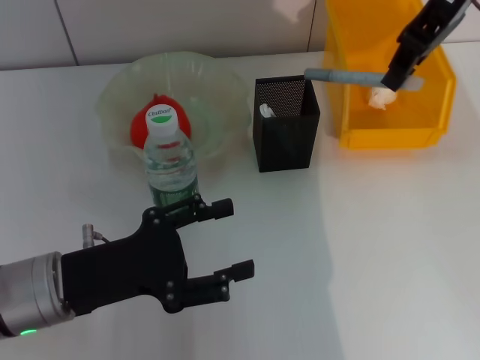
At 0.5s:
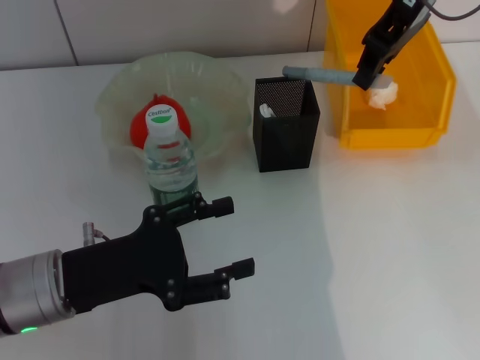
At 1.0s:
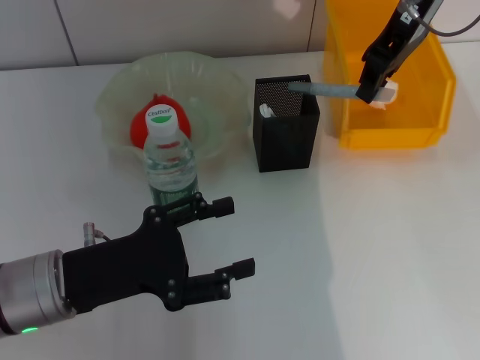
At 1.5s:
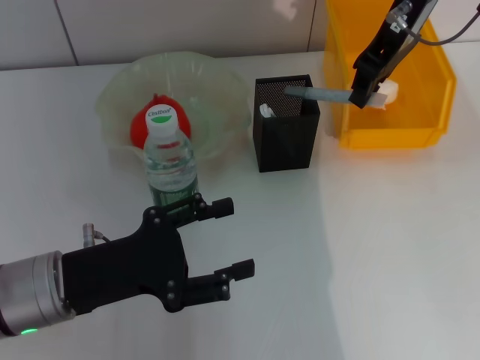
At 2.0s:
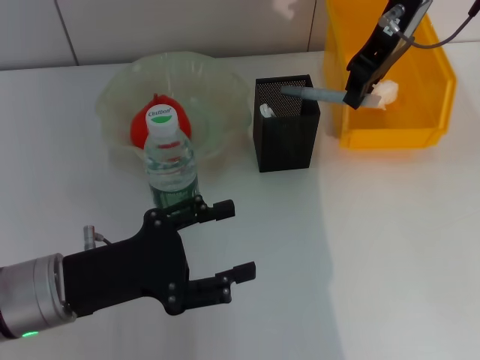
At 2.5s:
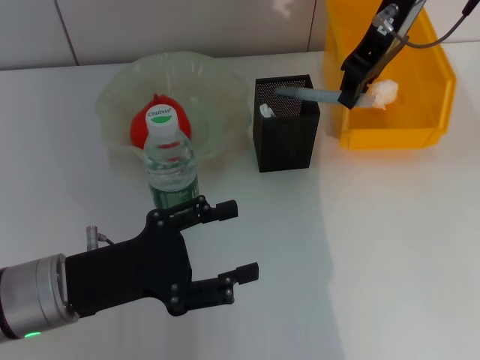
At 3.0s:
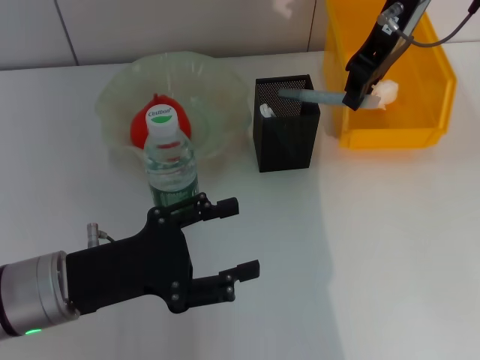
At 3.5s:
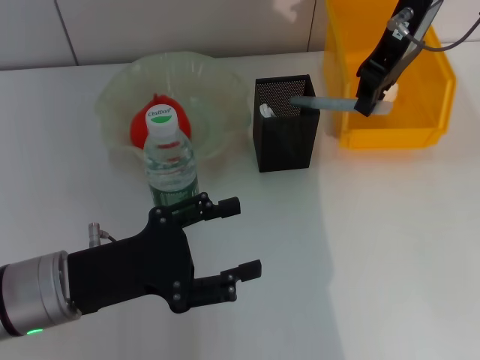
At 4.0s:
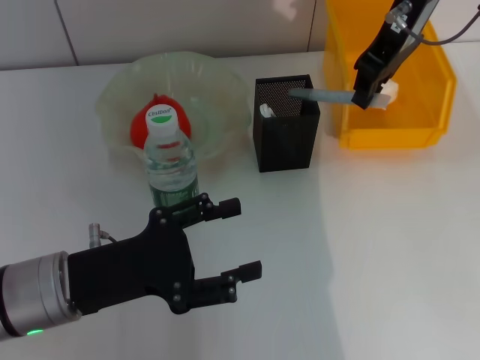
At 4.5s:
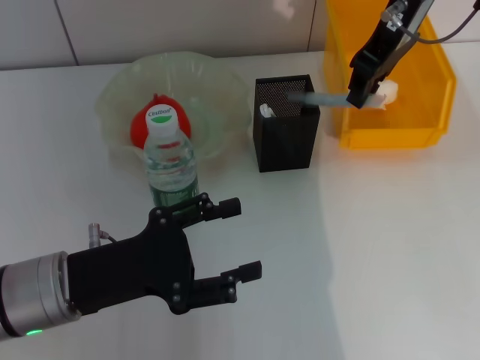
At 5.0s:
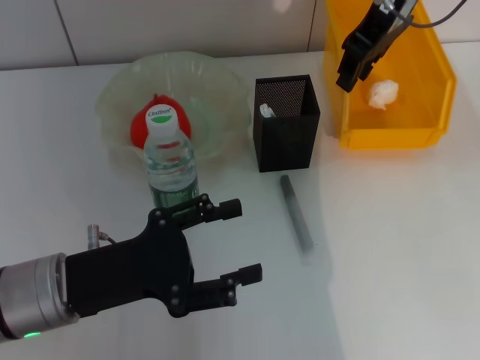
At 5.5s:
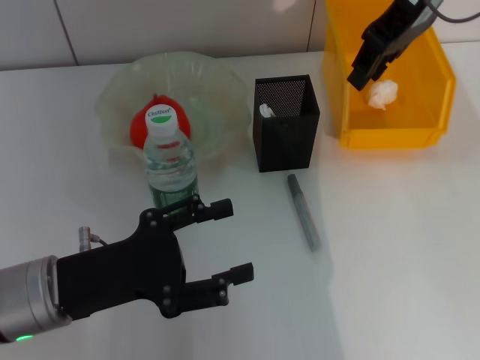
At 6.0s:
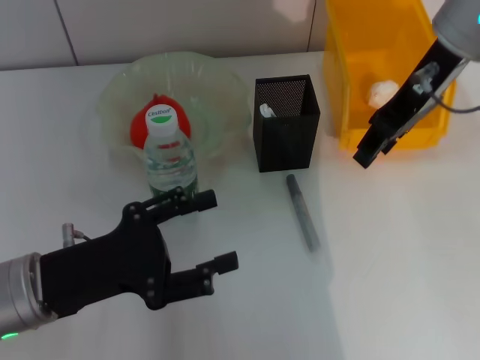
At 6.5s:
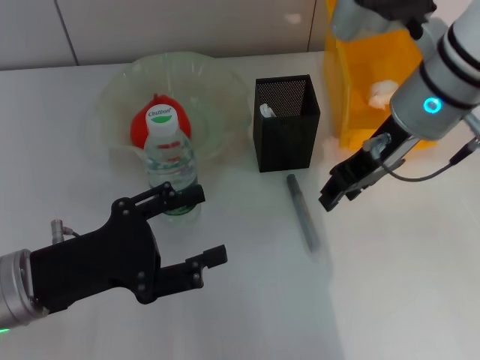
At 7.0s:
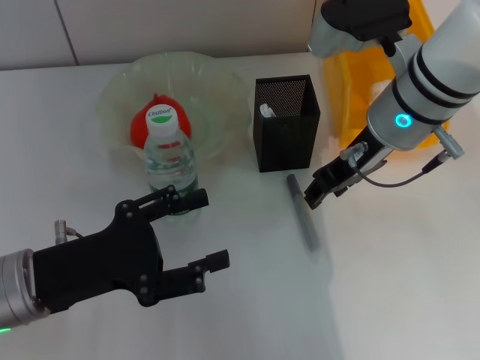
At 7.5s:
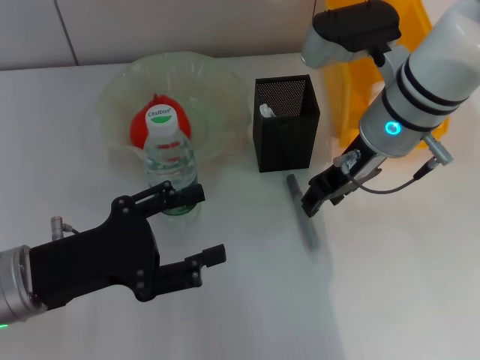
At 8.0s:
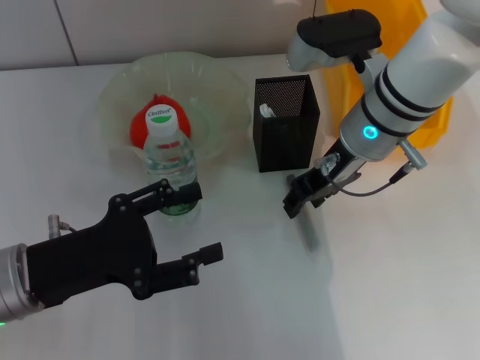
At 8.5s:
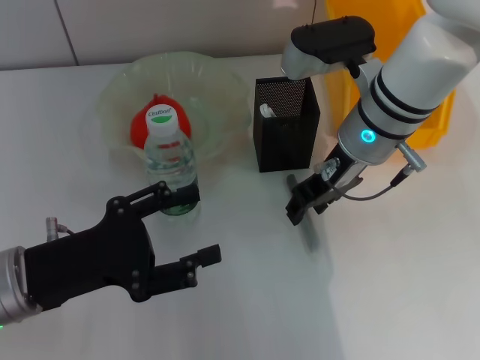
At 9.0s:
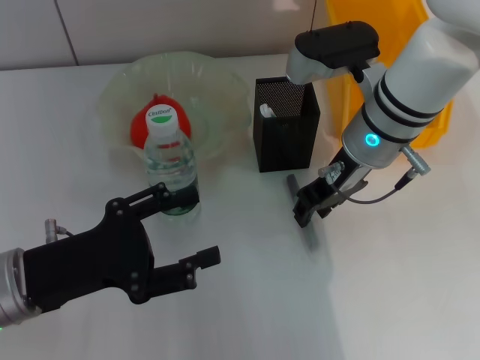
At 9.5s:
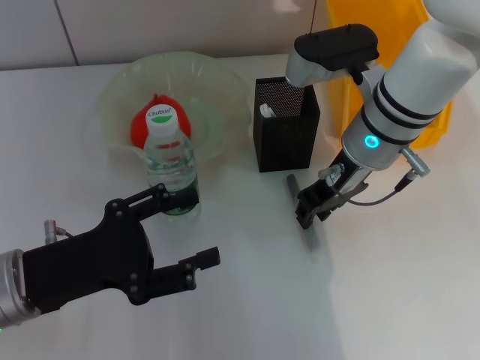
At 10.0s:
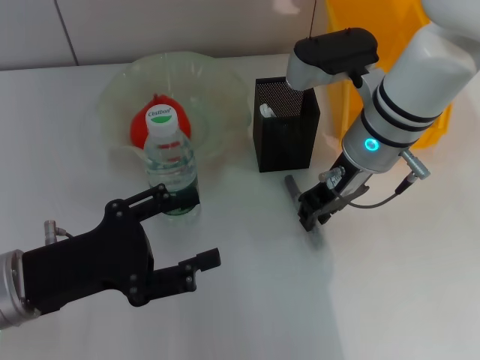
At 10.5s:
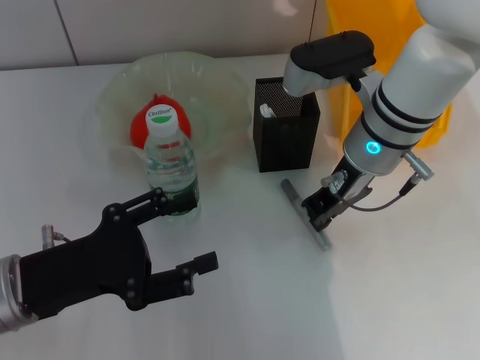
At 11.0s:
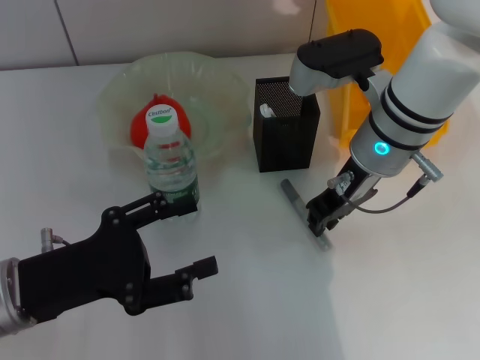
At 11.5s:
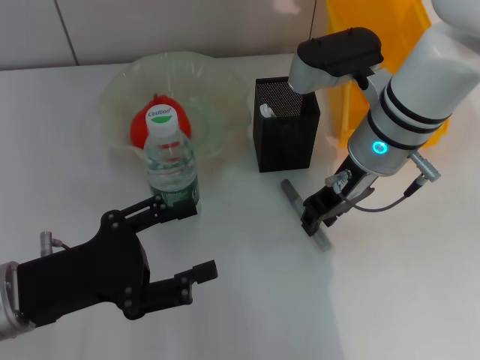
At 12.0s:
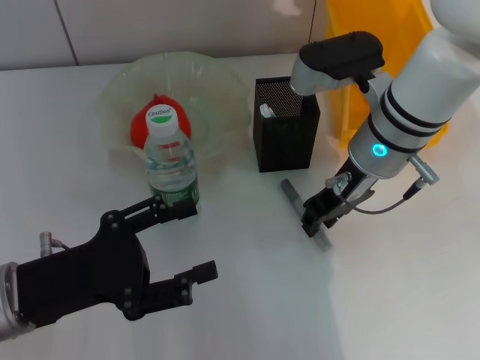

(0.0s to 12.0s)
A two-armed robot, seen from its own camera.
0.0s - 2.0s: The right gripper shifts by some 5 cm.
2.0s - 4.0s: Neither gripper changes place.
4.0s - 6.0s: The right gripper travels backward by approximately 5 cm, and opens its fingers.
6.0s - 8.0s: The right gripper moves downward and to the left, some 15 cm.
8.0s - 10.0s: The two grippers keep their place.
10.0s - 12.0s: The two grippers keep their place.

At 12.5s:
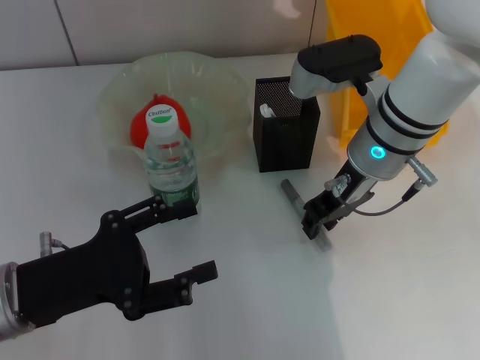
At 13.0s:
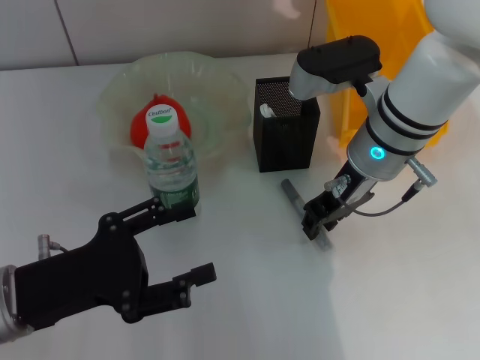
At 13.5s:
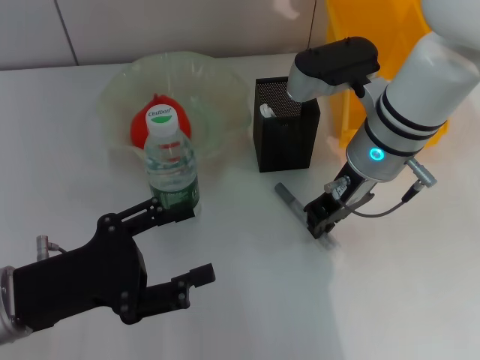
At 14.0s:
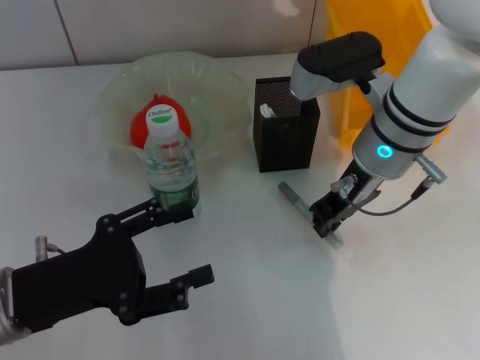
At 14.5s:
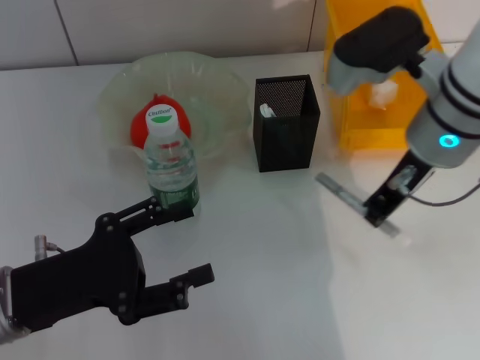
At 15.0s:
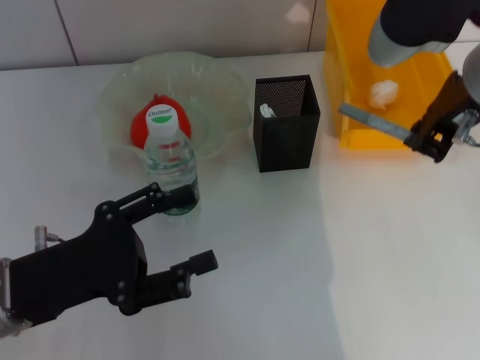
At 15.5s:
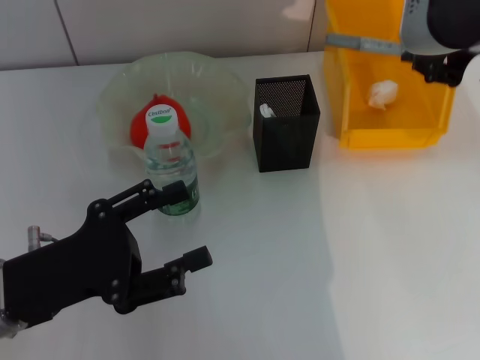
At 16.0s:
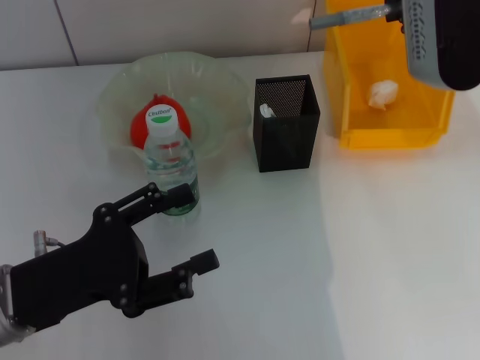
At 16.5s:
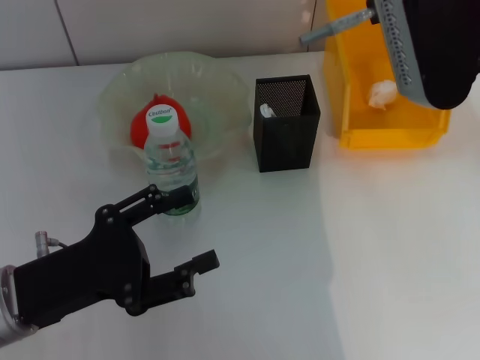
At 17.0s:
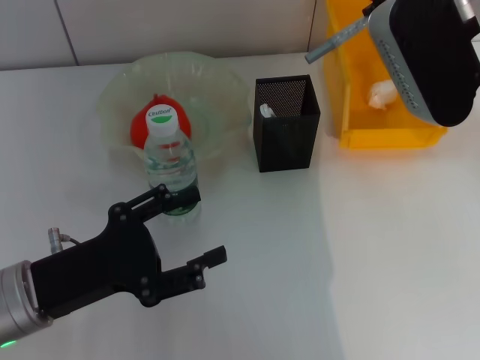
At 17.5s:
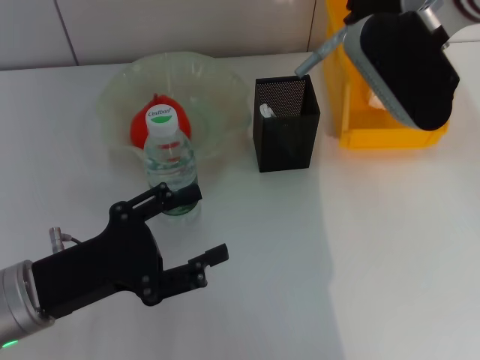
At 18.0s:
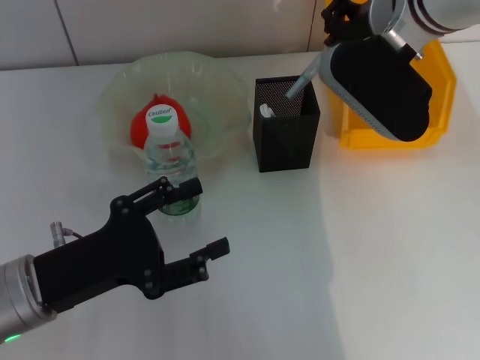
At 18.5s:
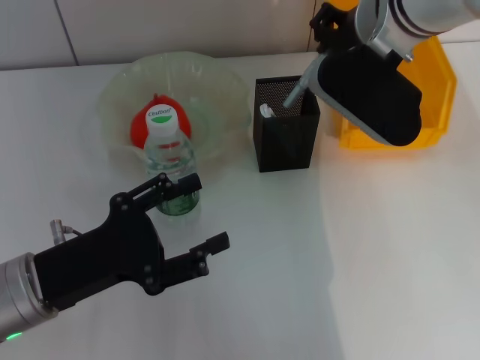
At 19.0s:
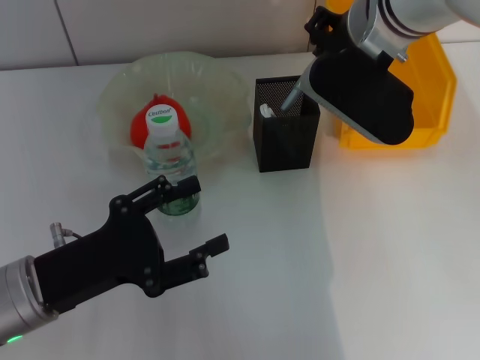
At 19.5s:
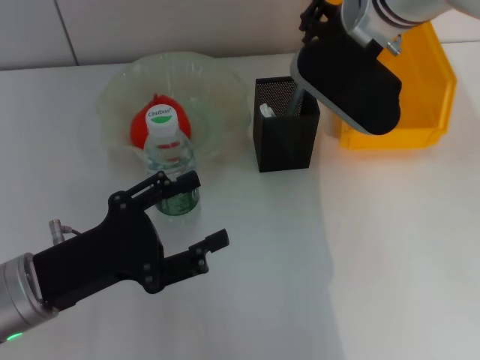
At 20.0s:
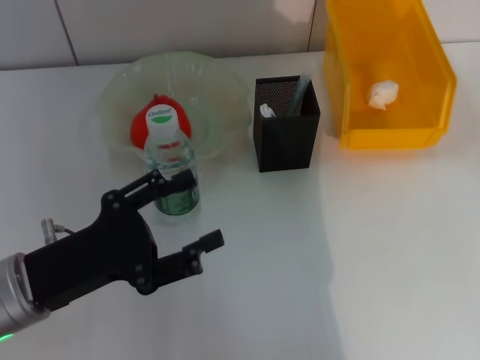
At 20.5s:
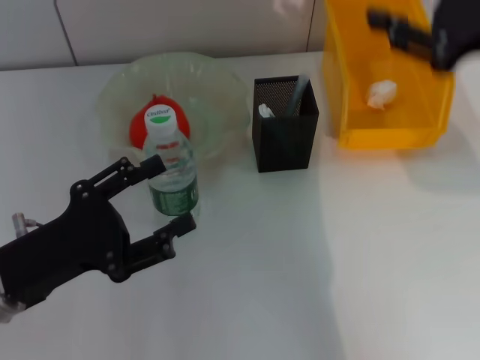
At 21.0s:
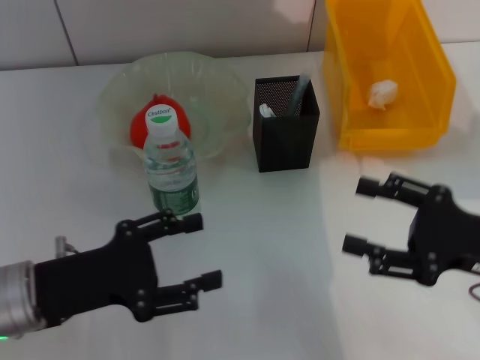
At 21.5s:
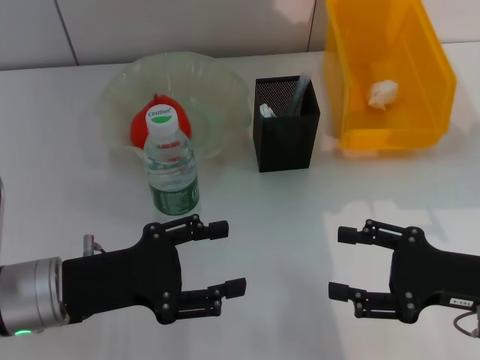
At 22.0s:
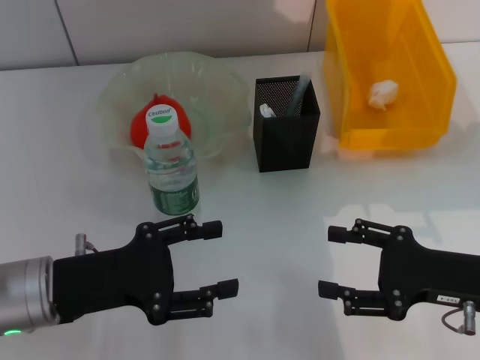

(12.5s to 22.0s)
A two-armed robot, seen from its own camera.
Step, 14.0s - 19.5s: Place the gray glue into the pen holder with the right hand.
12.5s - 14.5s: The right gripper shifts about 5 cm upward.
14.5s - 16.5s: The right gripper moves upward, roughly 10 cm.
16.5s - 18.0s: The right gripper shifts roughly 5 cm downward.
18.0s - 20.0s: The right gripper is displaced upward by roughly 10 cm, and opens.
20.0s - 22.0s: The right gripper is displaced downward, backward and to the right by some 35 cm, and opens its fingers.

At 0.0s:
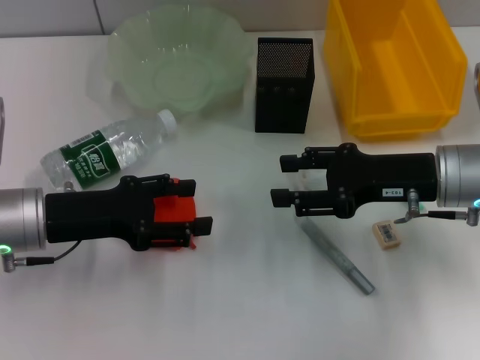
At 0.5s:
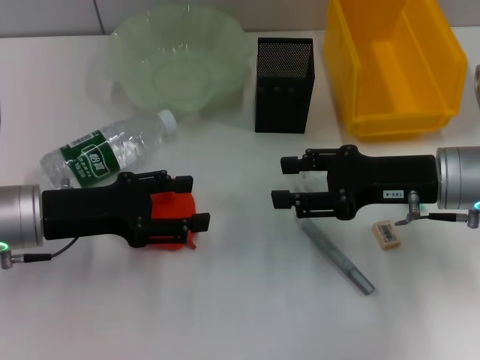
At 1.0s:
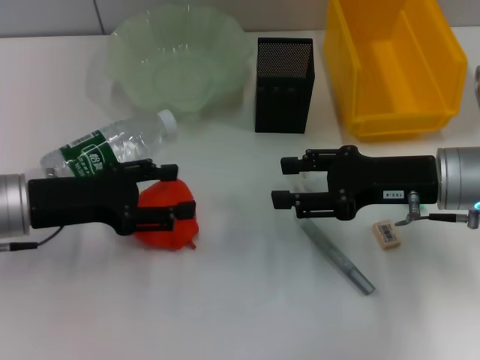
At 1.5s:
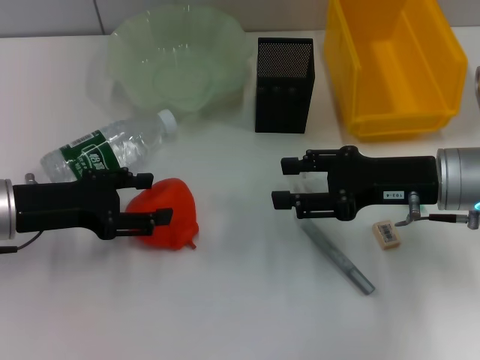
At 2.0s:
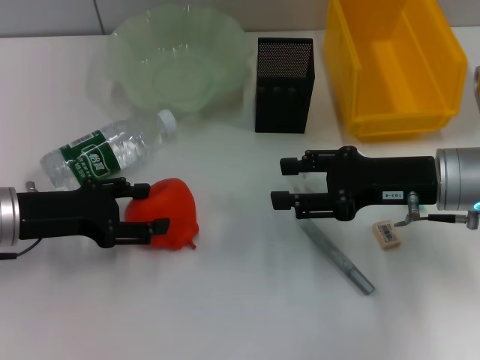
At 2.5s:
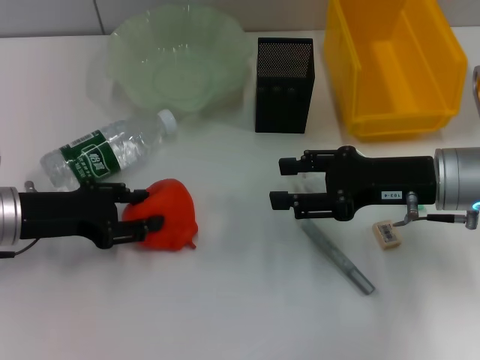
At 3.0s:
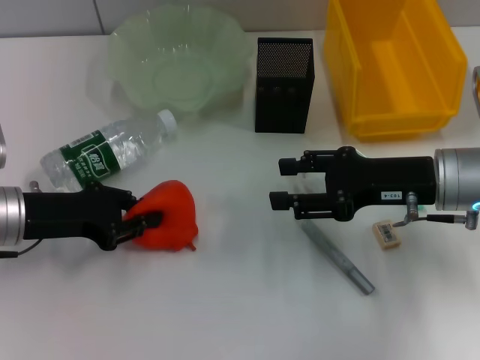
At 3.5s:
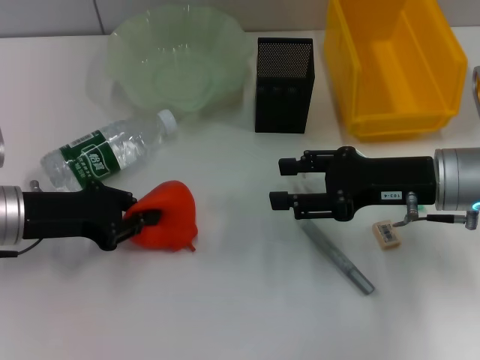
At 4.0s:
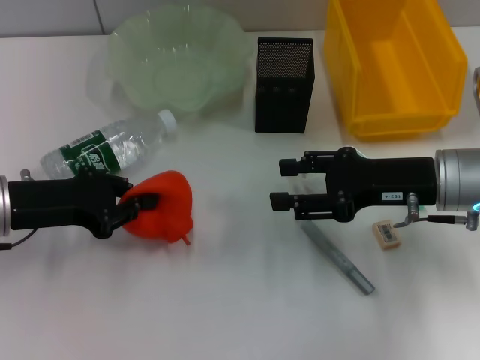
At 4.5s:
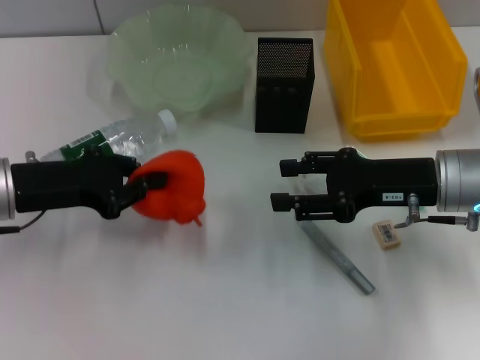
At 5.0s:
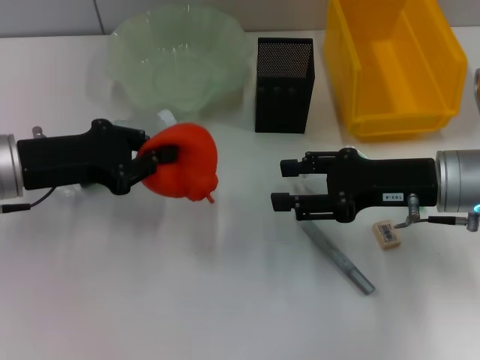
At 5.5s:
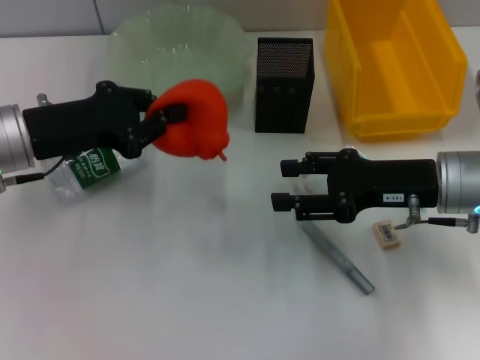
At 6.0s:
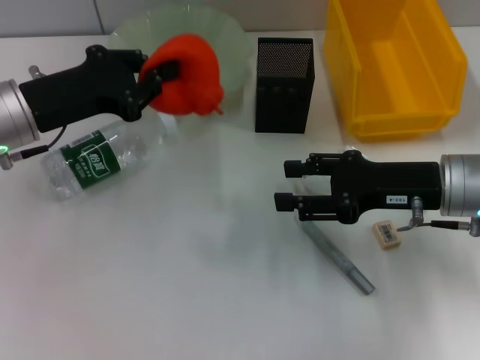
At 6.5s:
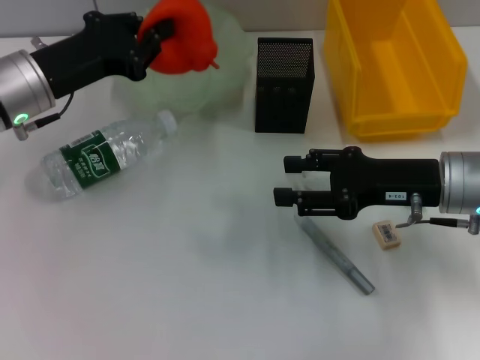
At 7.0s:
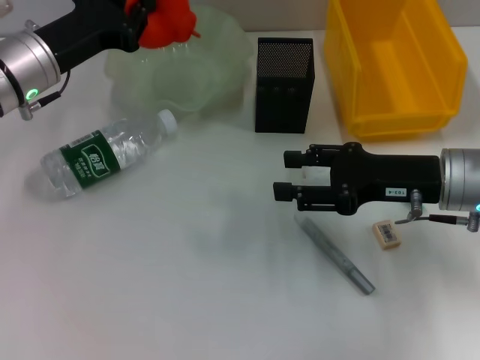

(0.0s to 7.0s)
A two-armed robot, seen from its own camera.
Step, 0.0s - 2.5s: Grab the orange with the left hand.
0.0s - 2.0s: The grippers stay close to where they were, moving slightly.
2.0s - 3.5s: The left gripper closes.
3.5s - 5.0s: There are only small adjustments of the grippers.
5.0s - 7.0s: The left gripper heads forward, covering about 10 cm.
